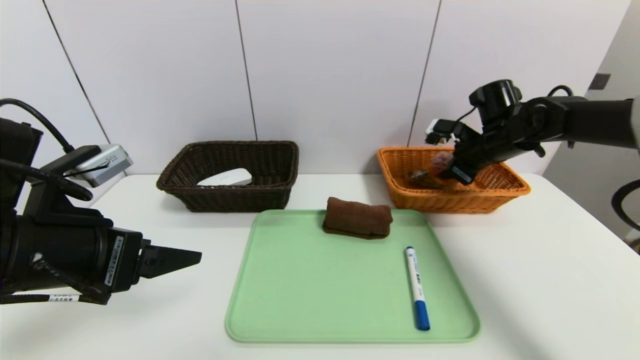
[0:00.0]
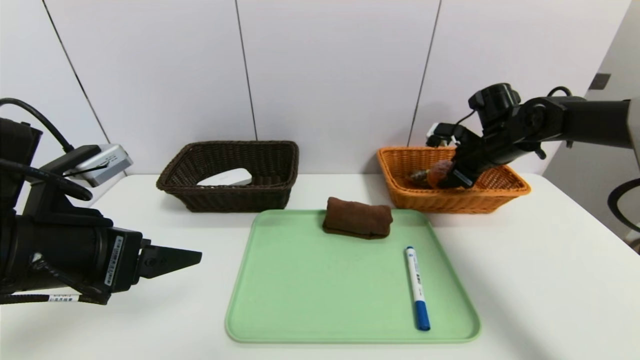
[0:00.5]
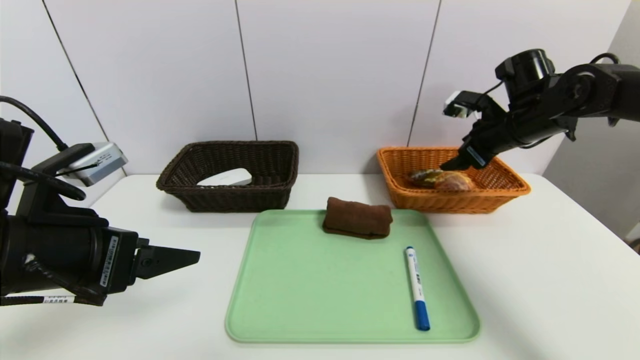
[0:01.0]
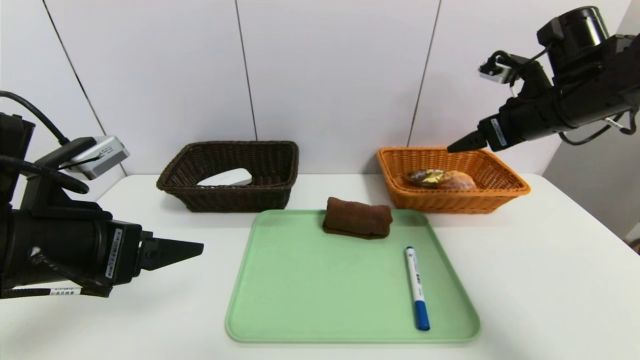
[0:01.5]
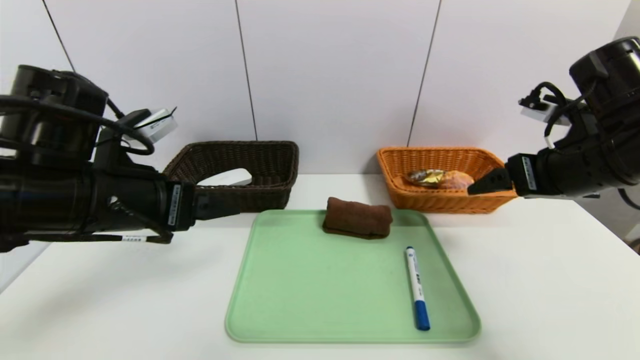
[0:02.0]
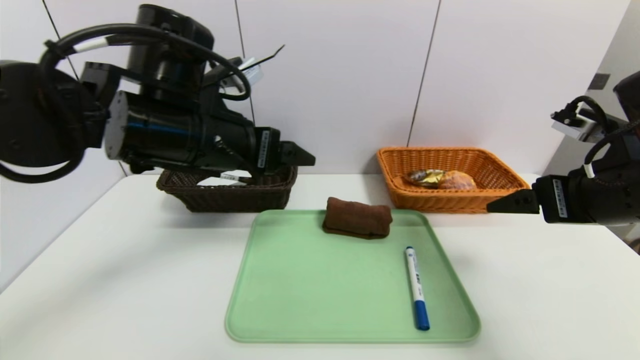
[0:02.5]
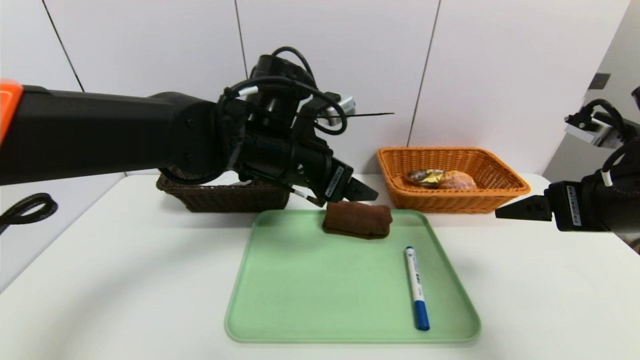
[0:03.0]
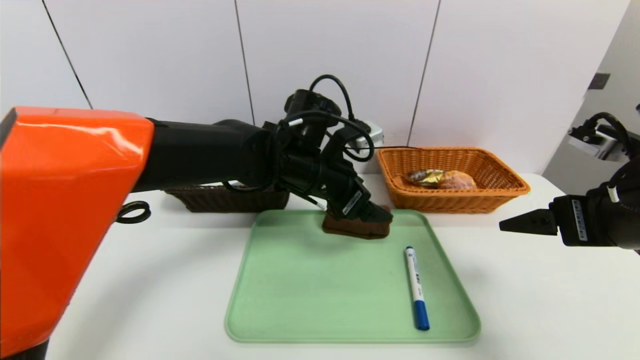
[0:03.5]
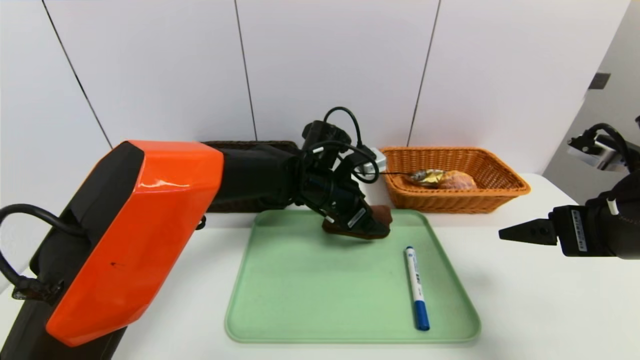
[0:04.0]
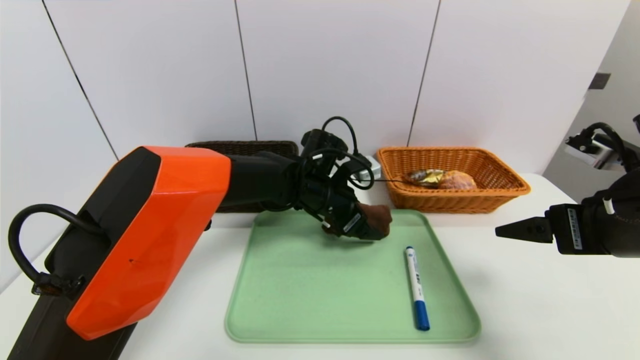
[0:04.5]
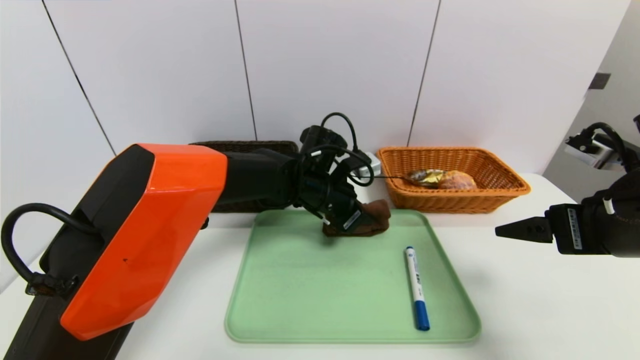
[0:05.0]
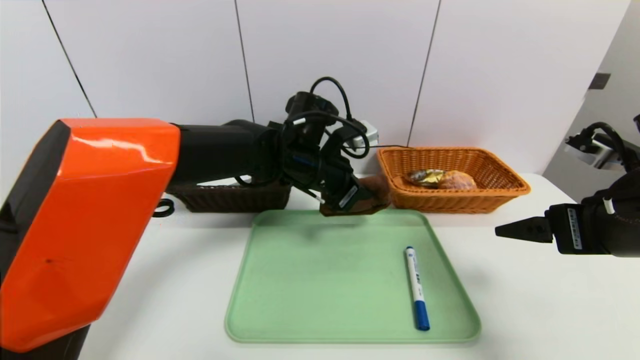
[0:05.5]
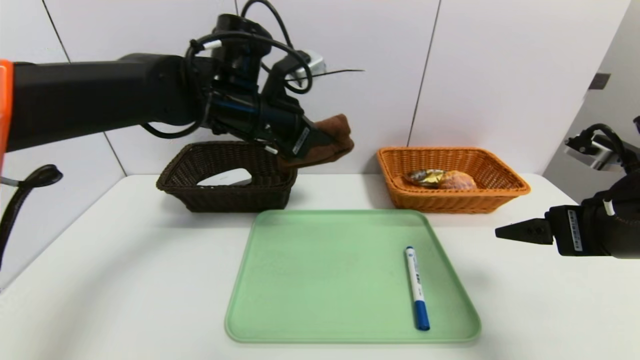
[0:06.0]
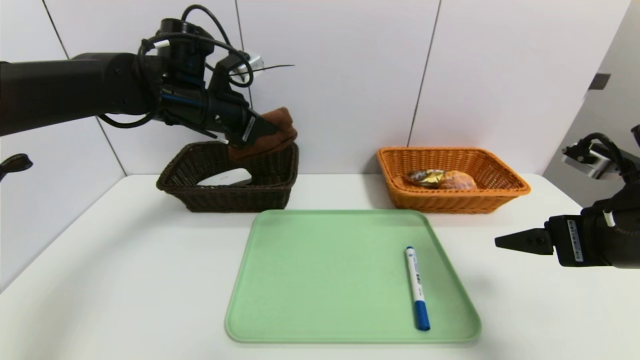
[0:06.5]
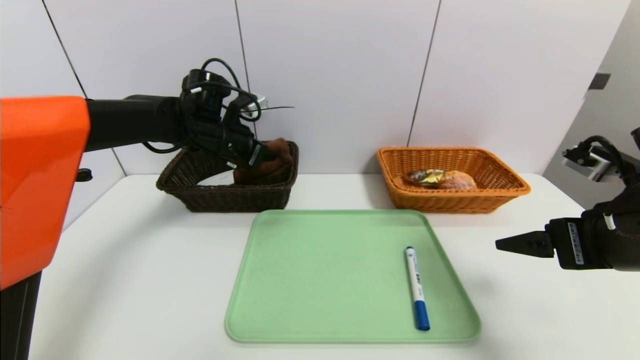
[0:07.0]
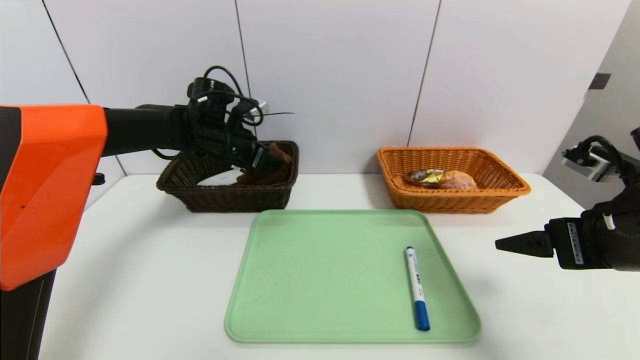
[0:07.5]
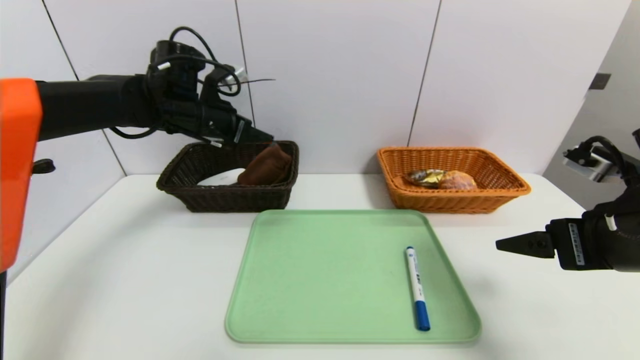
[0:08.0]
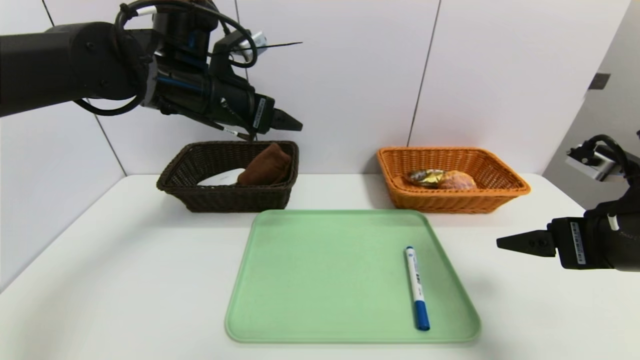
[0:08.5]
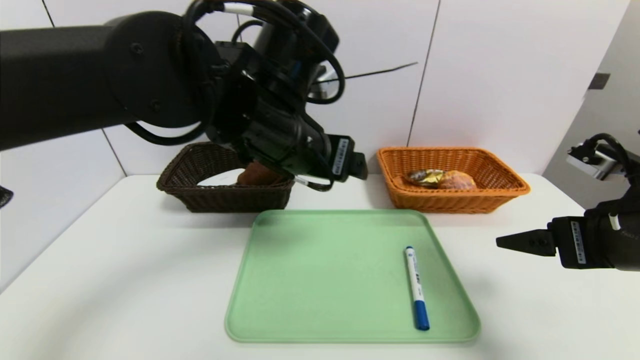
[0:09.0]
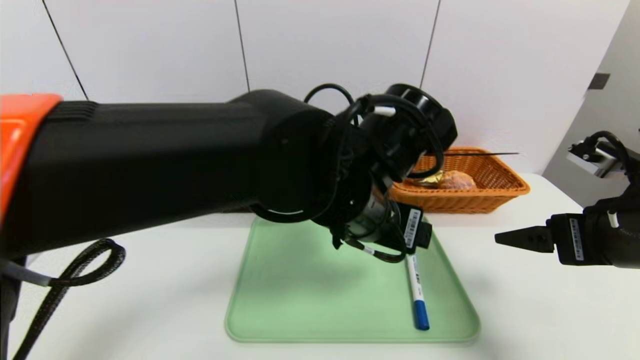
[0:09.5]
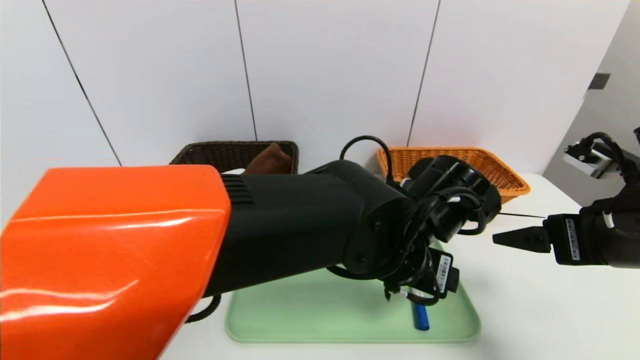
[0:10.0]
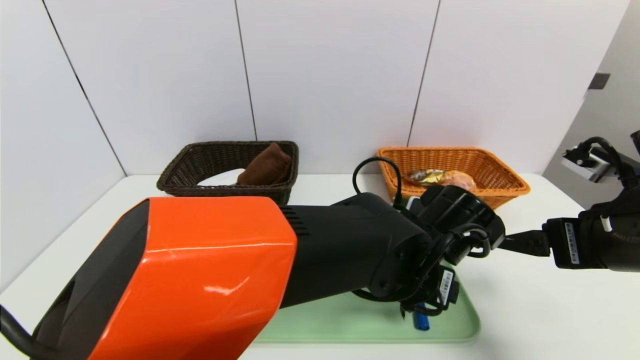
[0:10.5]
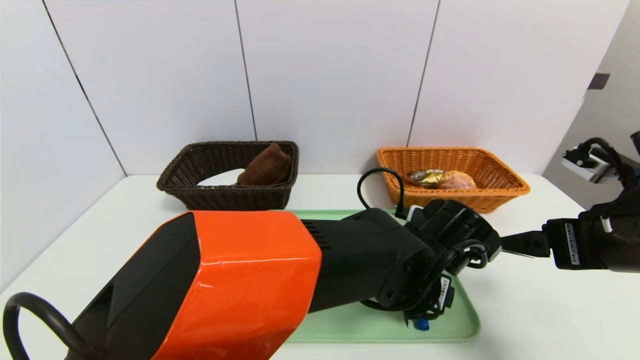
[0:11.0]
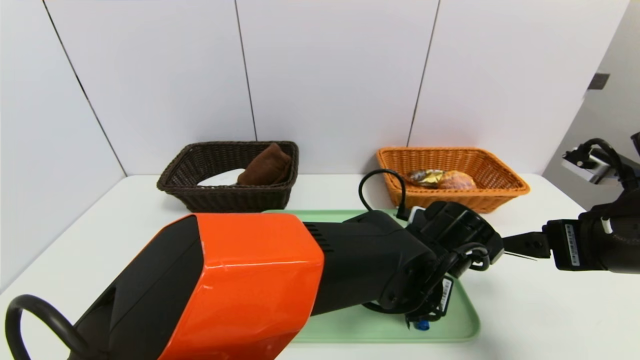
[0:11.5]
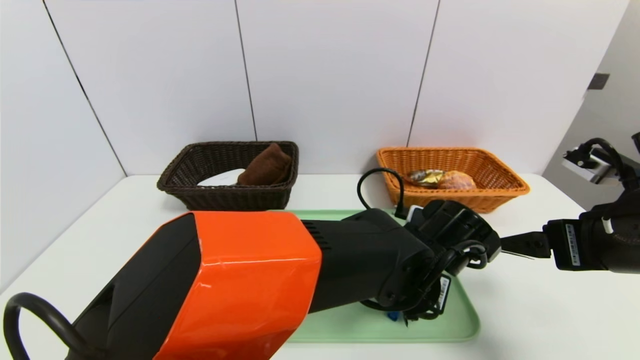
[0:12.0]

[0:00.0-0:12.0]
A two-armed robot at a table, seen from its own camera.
Task of the whole recording: place the food in the right basket with the right gripper, and place the non food items in the left basket with the left gripper.
Step, 0:01.0 to 0:07.5: Grasp the brown towel and put it in the left basket.
0:00.0 to 0:02.0: The left gripper moves forward, some 5 cm, while the right gripper is displaced backward by roughly 20 cm, and opens up.
0:02.0 to 0:04.0: The right gripper moves backward, about 5 cm. Meanwhile the left gripper travels to the right, forward and downward by roughly 30 cm.
0:04.0 to 0:06.0: The left gripper heads upward and to the left, covering some 15 cm, and closes.
0:06.0 to 0:08.0: The left gripper goes approximately 10 cm to the left and forward, and opens.
0:08.0 to 0:10.0: The left gripper is displaced to the right and backward by approximately 35 cm.
0:10.0 to 0:12.0: The left gripper goes some 5 cm downward, and closes.

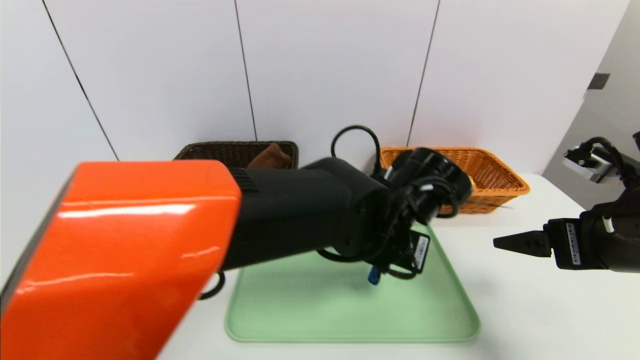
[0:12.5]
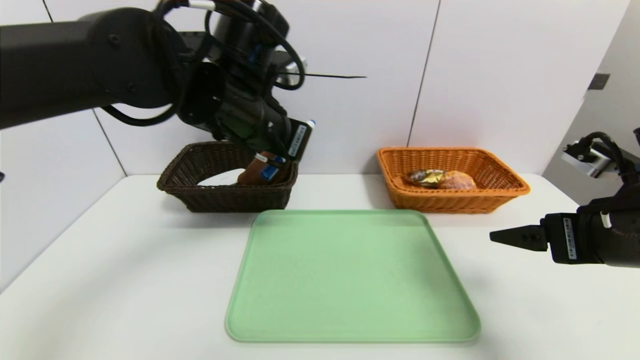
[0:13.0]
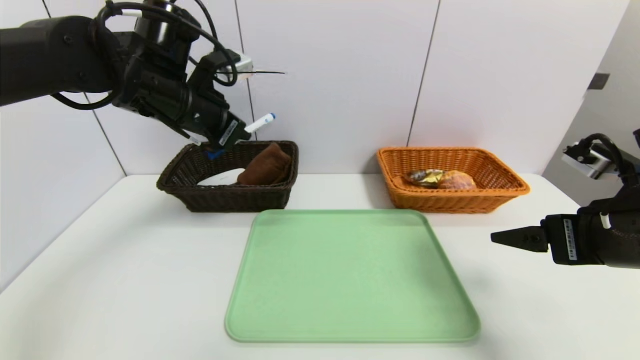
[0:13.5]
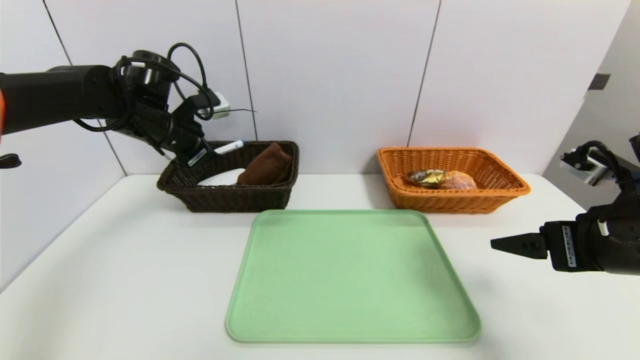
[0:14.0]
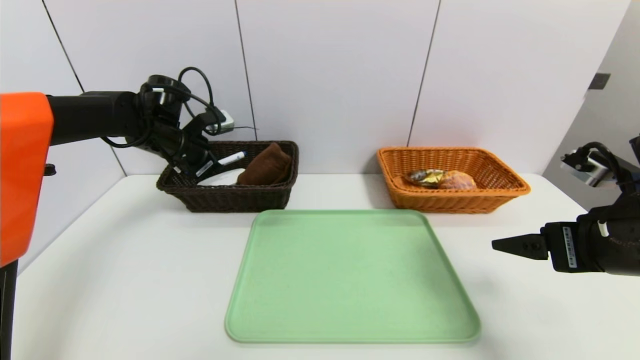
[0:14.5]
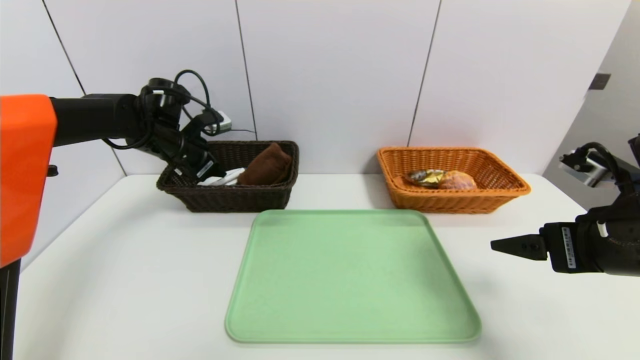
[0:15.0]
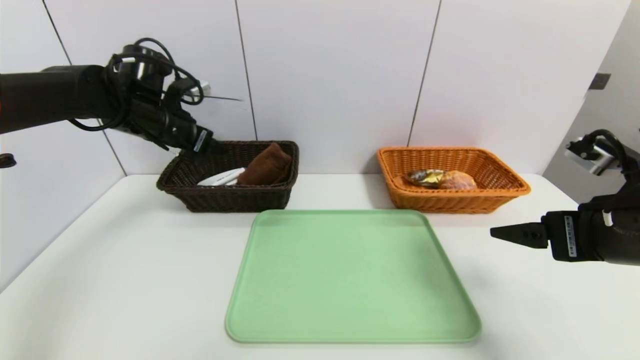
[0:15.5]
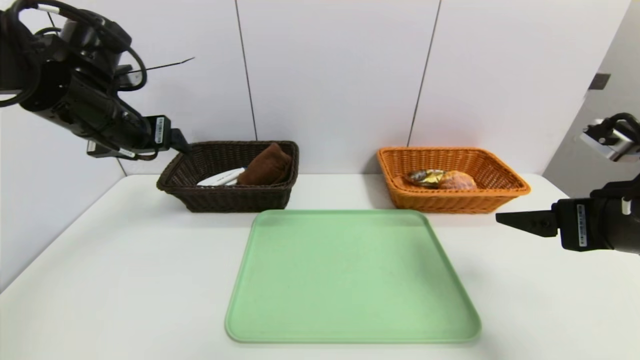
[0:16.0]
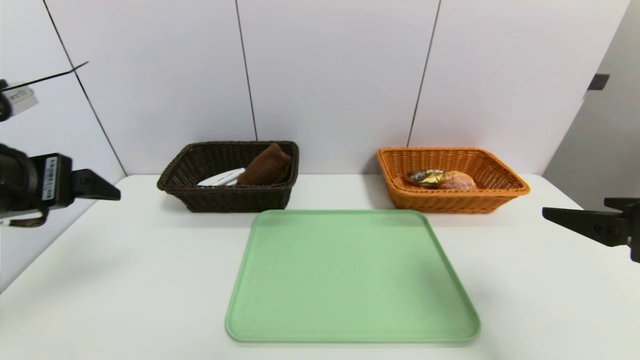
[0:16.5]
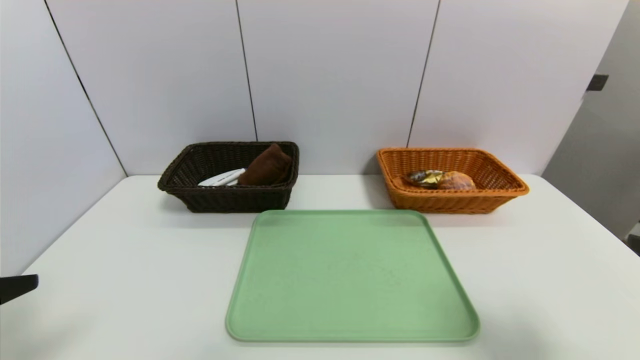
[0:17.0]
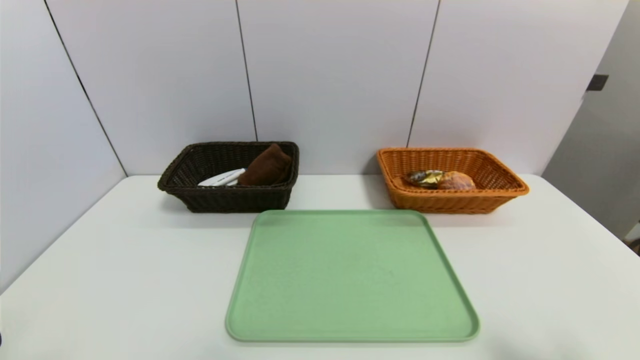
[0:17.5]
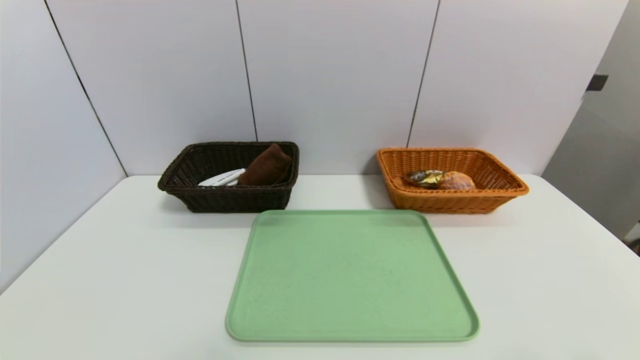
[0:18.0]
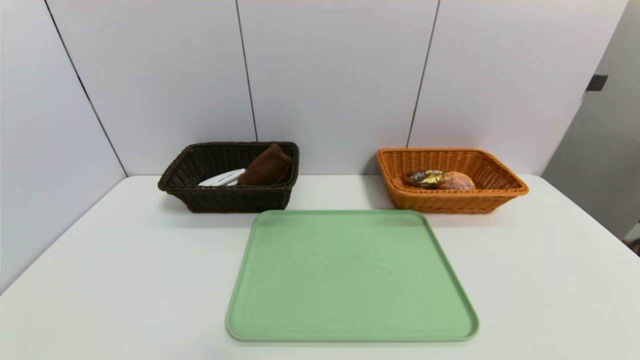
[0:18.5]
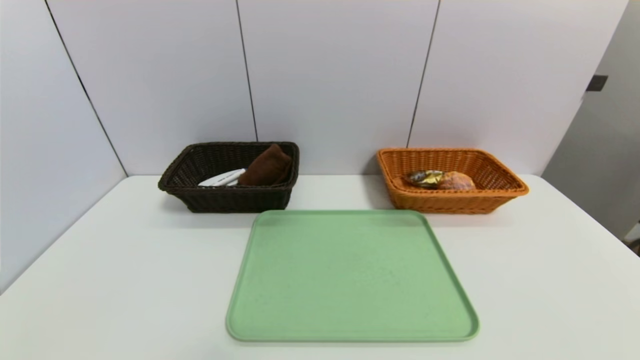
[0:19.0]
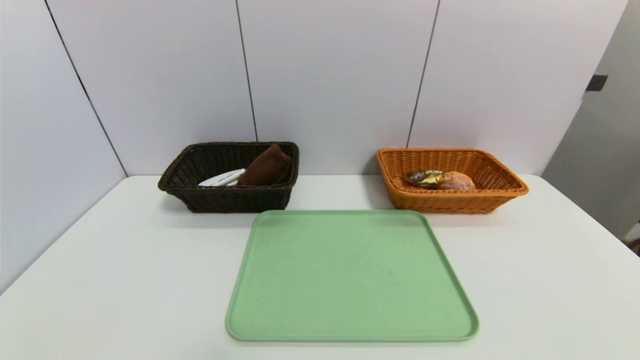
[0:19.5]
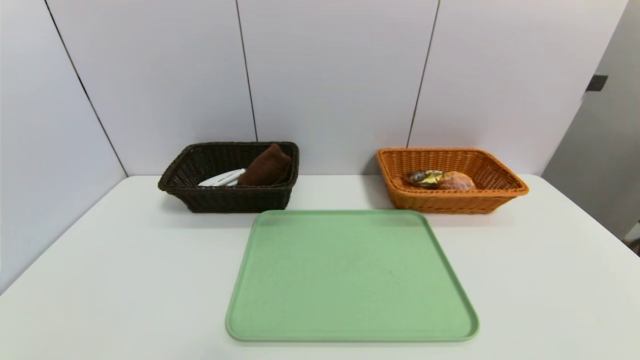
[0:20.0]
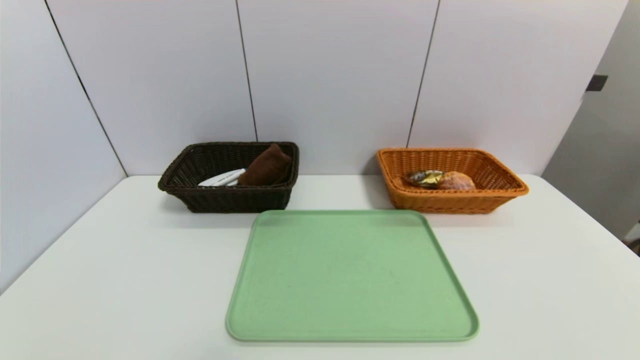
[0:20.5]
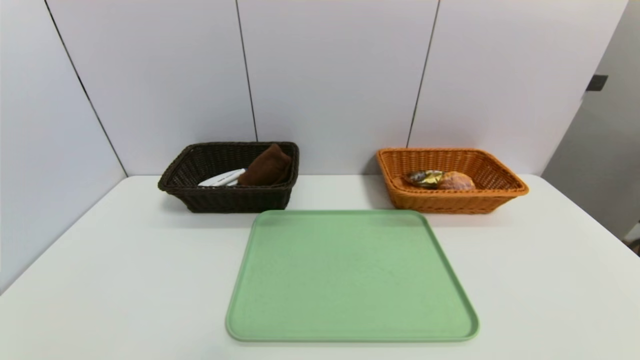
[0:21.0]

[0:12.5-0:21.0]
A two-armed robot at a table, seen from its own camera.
Task of the whole recording: place the food in the right basket with the right gripper, and place the non food items in the left basket with the left gripper.
Step, 0:12.5 to 0:15.0: Grasp the blue marker and put it in the left basket.
0:12.5 to 0:14.5: The left gripper goes roughly 35 cm to the left and forward.
0:14.5 to 0:16.5: The right gripper heads backward, covering approximately 5 cm. The left gripper travels backward by approximately 25 cm, and opens up.
0:16.5 to 0:19.0: Both grippers travel together backward and downward, roughly 25 cm.
